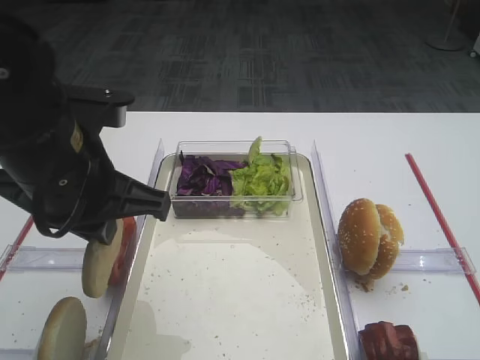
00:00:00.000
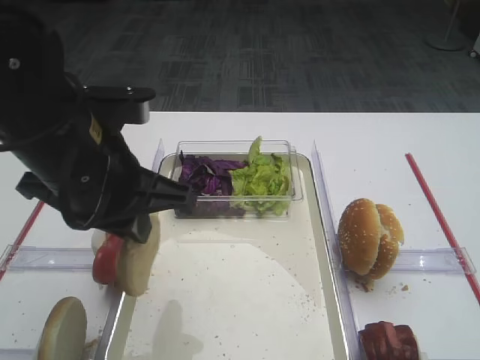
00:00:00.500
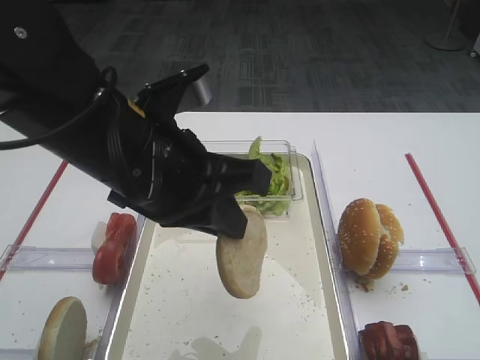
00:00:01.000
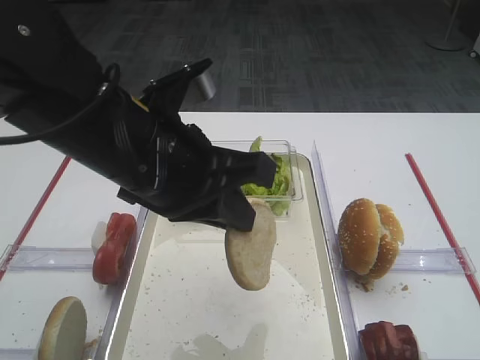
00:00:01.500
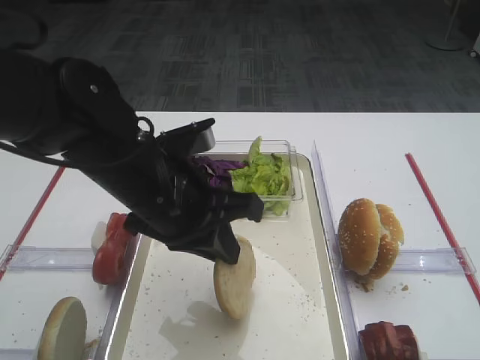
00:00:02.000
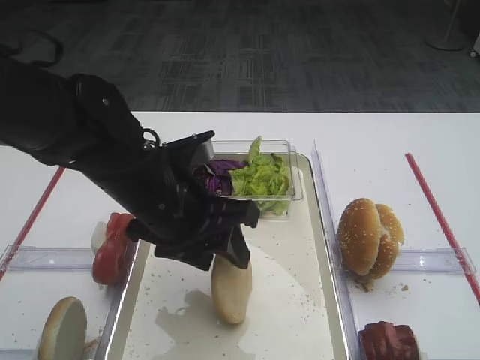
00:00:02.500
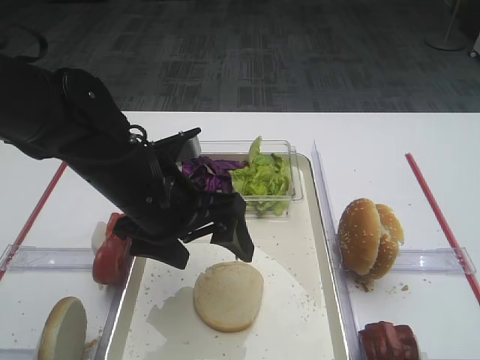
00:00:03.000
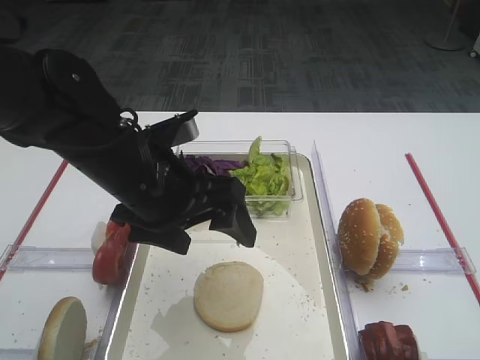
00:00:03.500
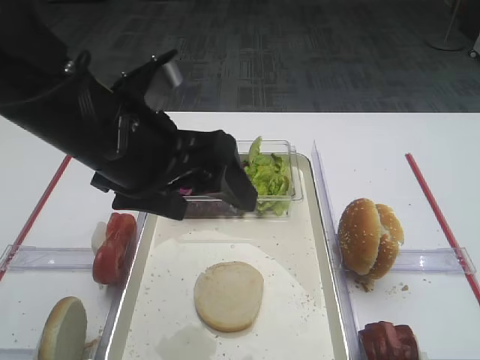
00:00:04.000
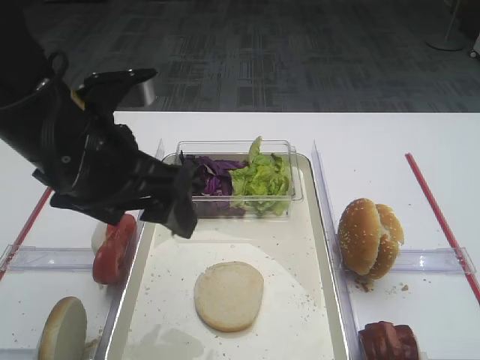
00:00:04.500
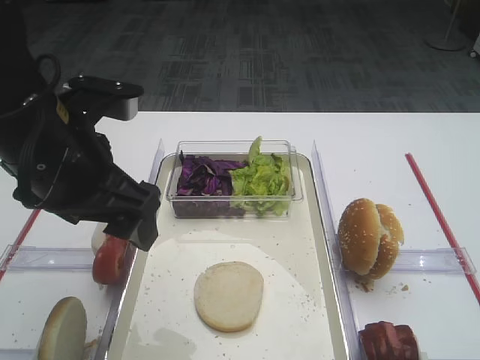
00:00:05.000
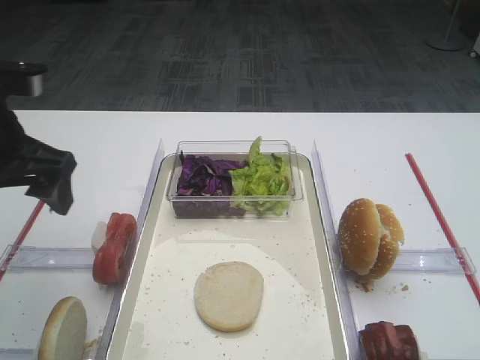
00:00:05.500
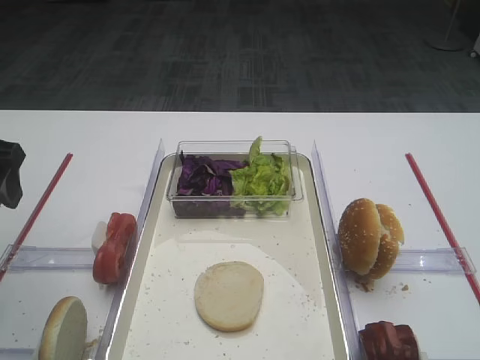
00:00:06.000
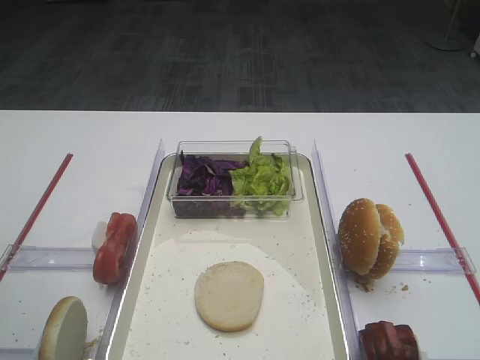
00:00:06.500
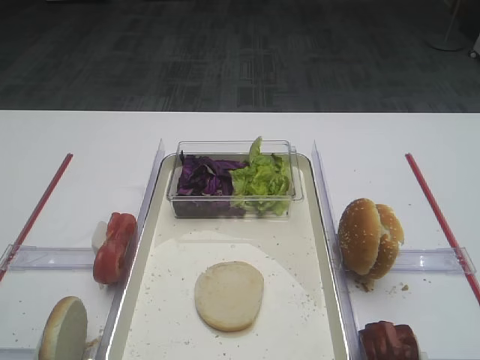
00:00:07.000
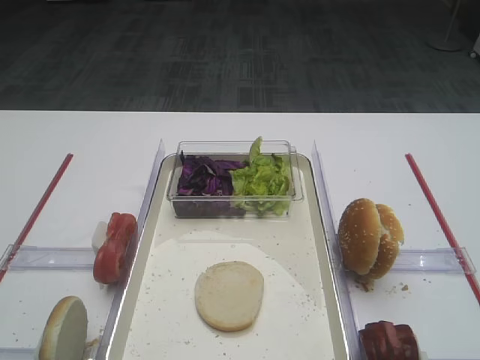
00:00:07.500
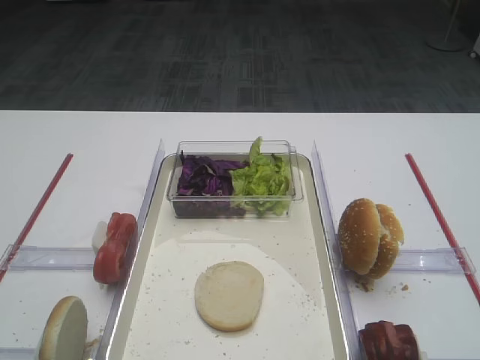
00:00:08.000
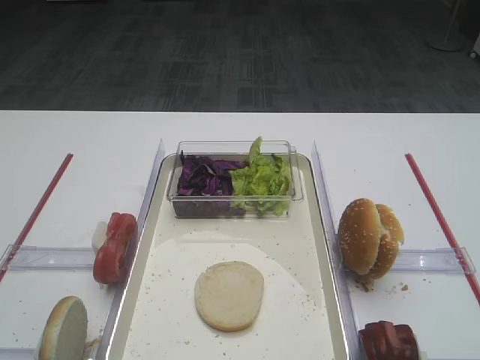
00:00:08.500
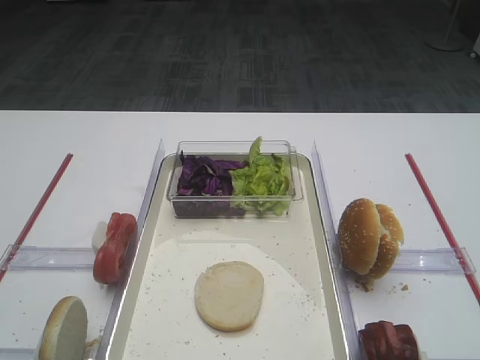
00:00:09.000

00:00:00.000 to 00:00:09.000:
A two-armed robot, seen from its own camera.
Step, 00:00:00.000 to 00:00:04.000: Place the bread slice on the tray with the left gripper.
00:00:00.000 to 00:00:02.000: The left gripper moves to the right and downward, some 10 cm.
00:00:02.000 to 00:00:04.500: The left gripper shifts about 10 cm upward and to the left, and opens its fingers.
00:00:04.500 to 00:00:07.000: The left gripper shifts roughly 20 cm to the left and backward.

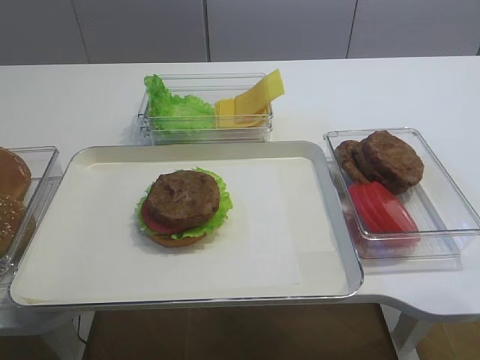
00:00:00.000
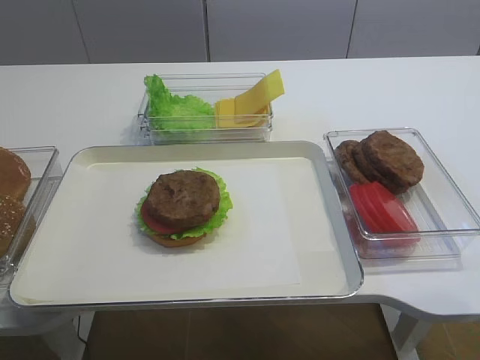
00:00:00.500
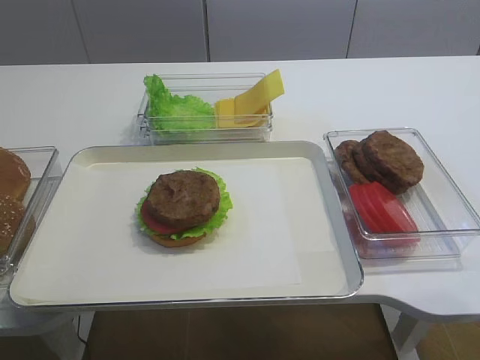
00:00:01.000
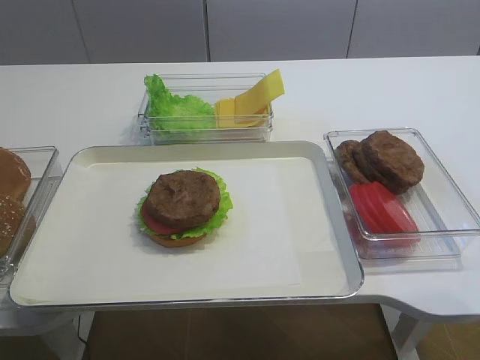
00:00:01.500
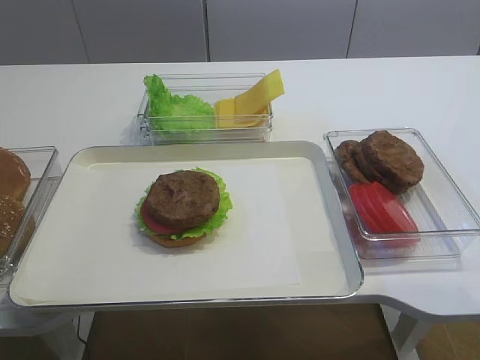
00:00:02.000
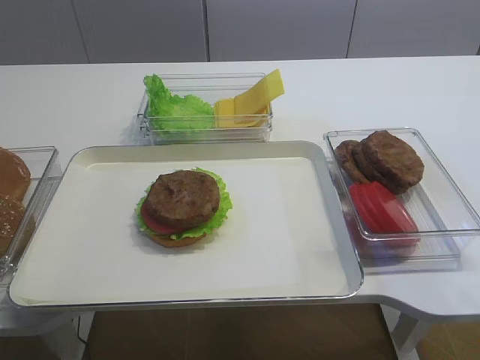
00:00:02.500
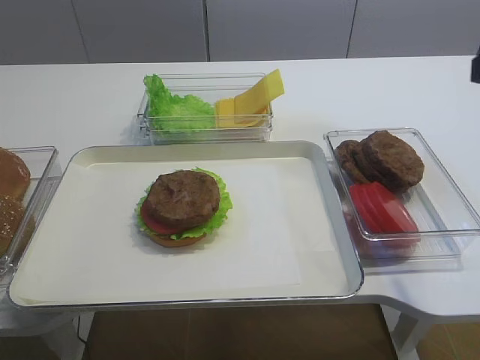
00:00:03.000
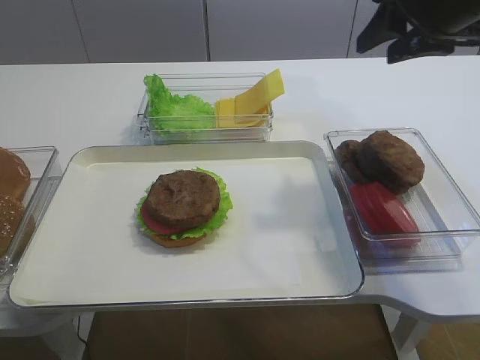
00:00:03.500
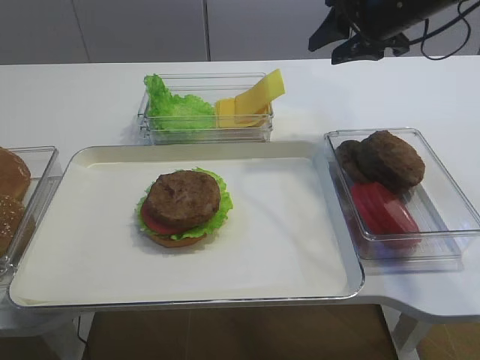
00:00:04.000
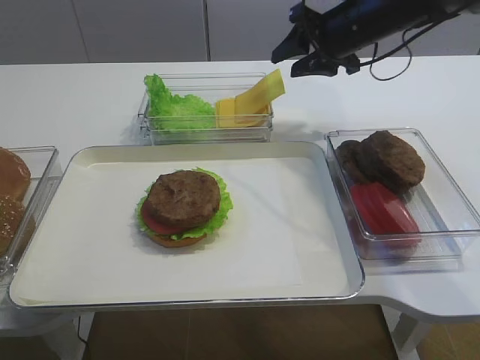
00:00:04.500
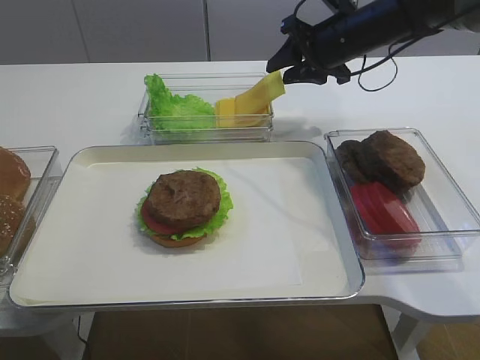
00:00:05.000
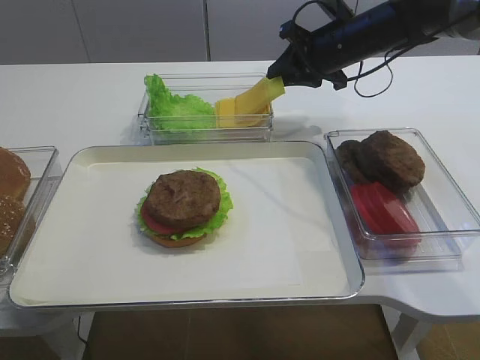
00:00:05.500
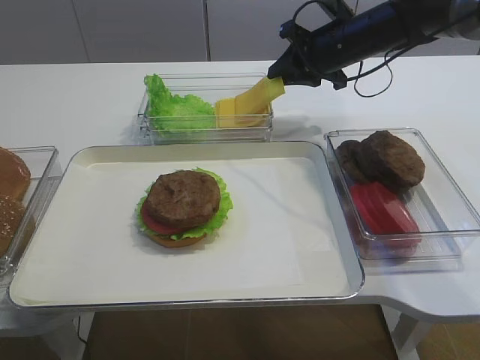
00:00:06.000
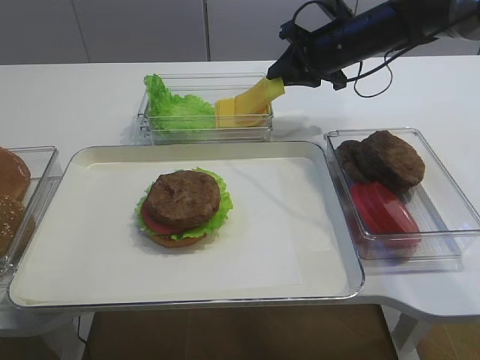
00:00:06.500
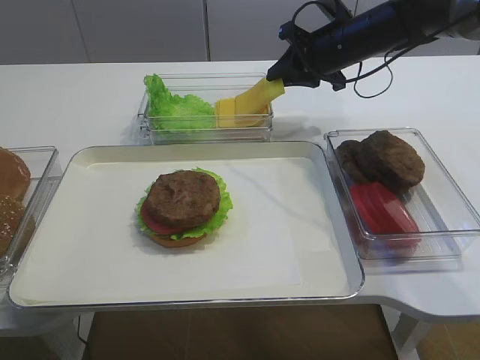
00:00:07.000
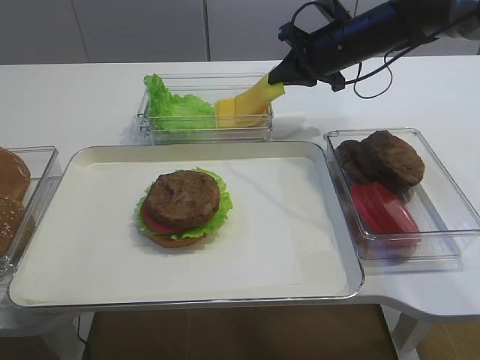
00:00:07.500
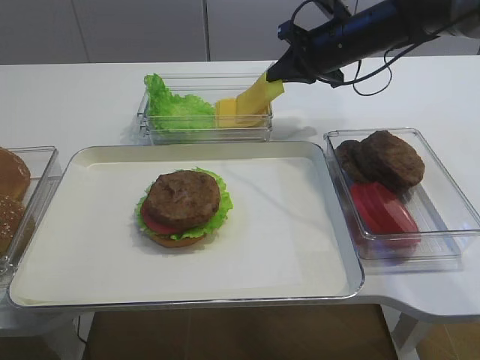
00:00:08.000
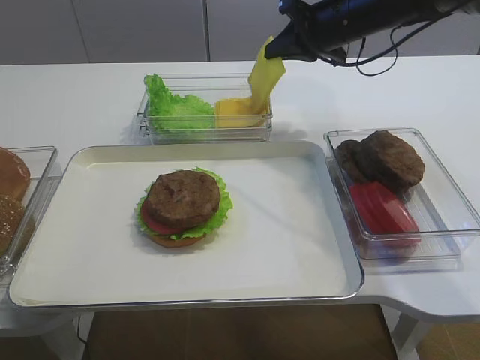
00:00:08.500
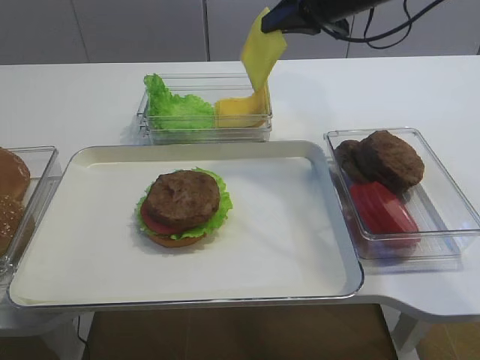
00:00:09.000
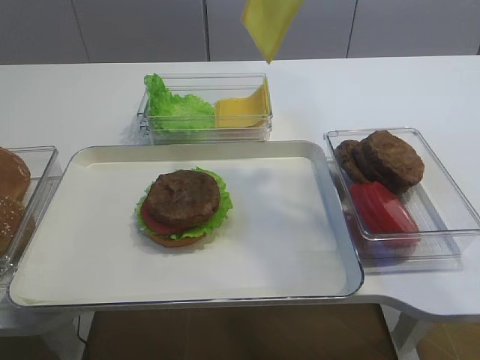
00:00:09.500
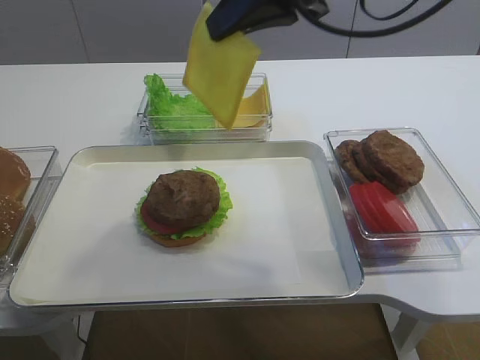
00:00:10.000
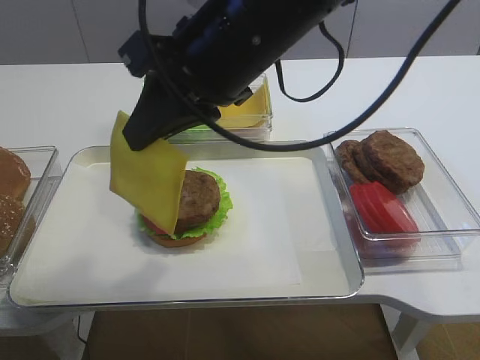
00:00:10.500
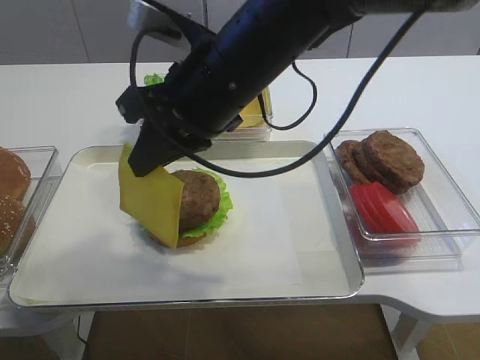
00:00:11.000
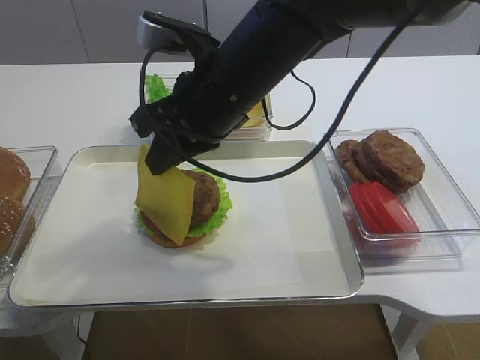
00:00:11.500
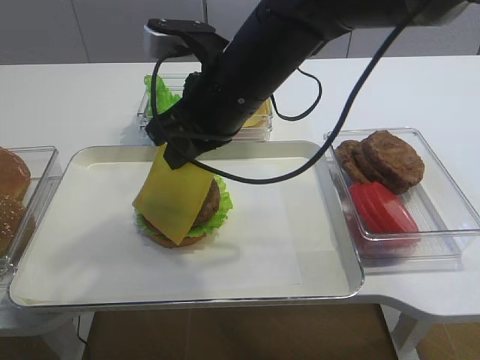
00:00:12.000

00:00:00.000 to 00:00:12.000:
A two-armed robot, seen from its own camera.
Step, 00:00:00.000 to 00:00:08.500: Pick up the cheese slice with the right gripper.
00:00:02.000 to 00:00:04.000: The right gripper moves forward, about 50 cm.
00:00:04.000 to 00:00:06.000: The right gripper is displaced downward by roughly 5 cm, and closes.
00:00:06.000 to 00:00:08.000: Both grippers stay put.
00:00:08.000 to 00:00:10.000: The right gripper goes about 20 cm backward and upward.
00:00:10.000 to 00:00:12.000: The right gripper heads downward and to the left, covering approximately 15 cm.

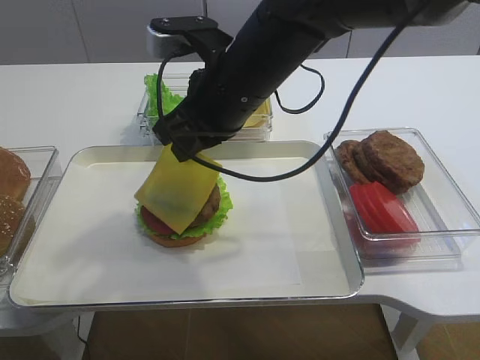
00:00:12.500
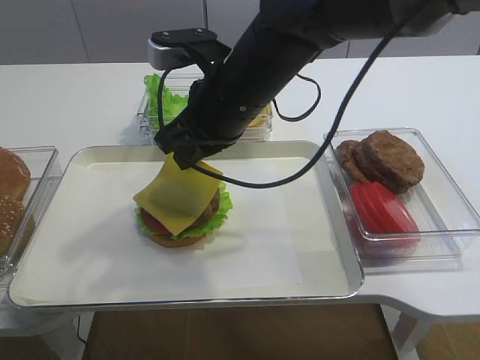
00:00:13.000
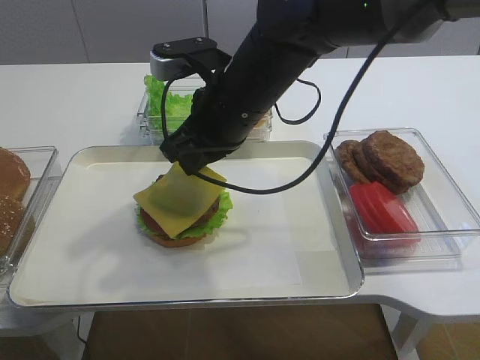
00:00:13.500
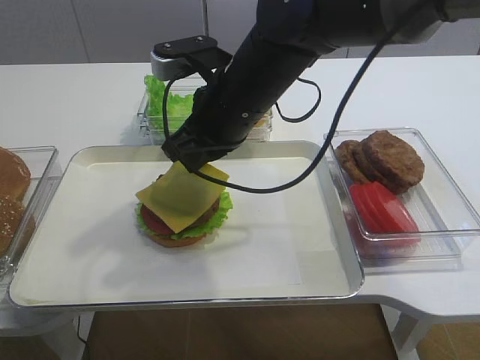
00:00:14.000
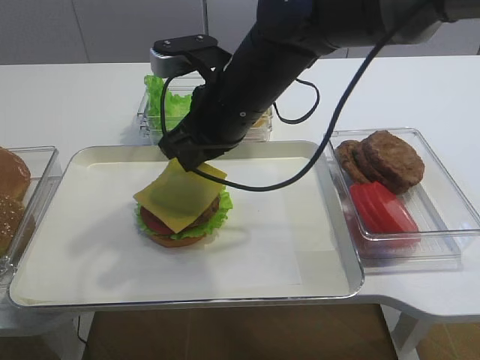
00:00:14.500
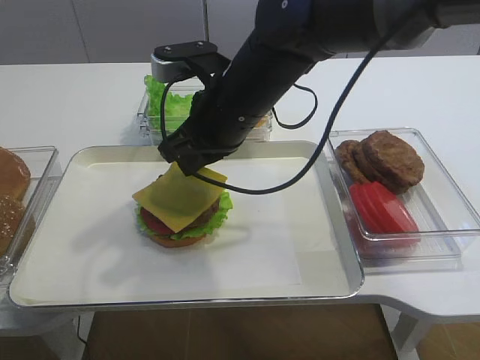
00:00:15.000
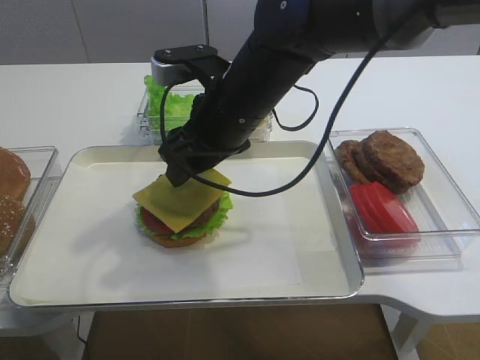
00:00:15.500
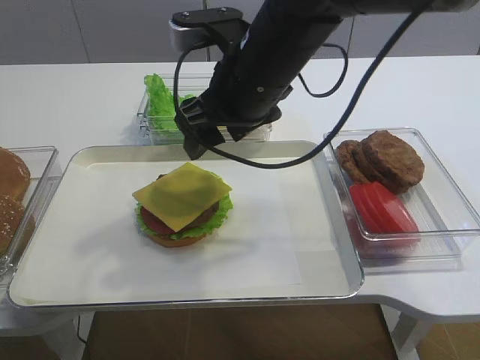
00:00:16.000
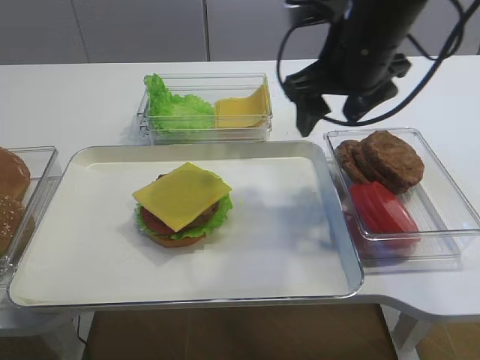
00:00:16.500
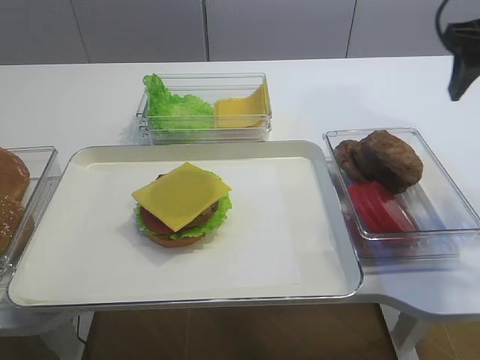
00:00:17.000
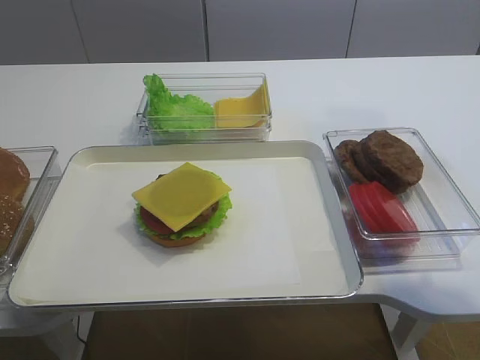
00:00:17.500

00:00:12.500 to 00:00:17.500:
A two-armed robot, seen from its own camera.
Step, 00:00:12.500 to 00:00:16.000: Place the cheese slice on the cutlet with the right gripper.
00:00:12.500 to 00:00:15.000: There are only small adjustments of the grippers.
00:00:15.000 to 00:00:17.500: The right gripper travels to the right and upward by about 30 cm, and opens up.
